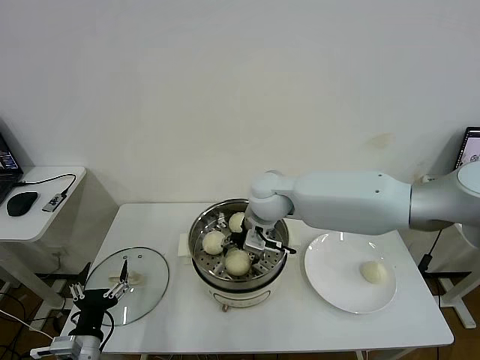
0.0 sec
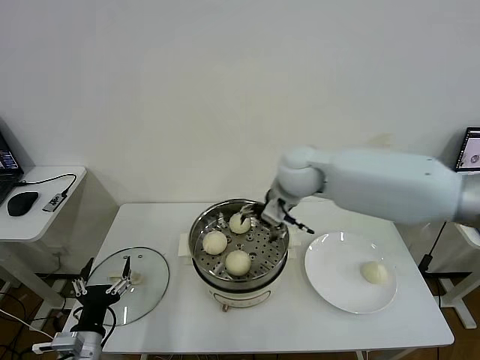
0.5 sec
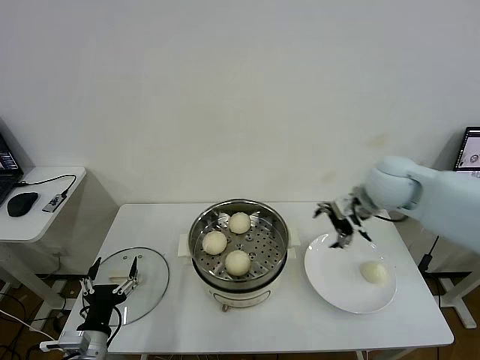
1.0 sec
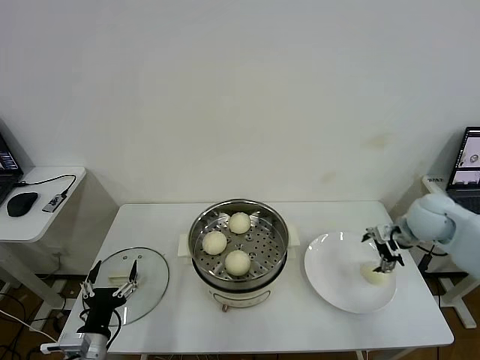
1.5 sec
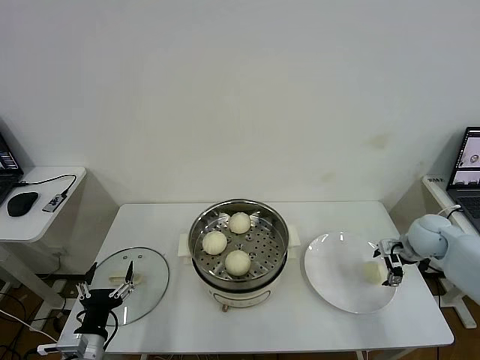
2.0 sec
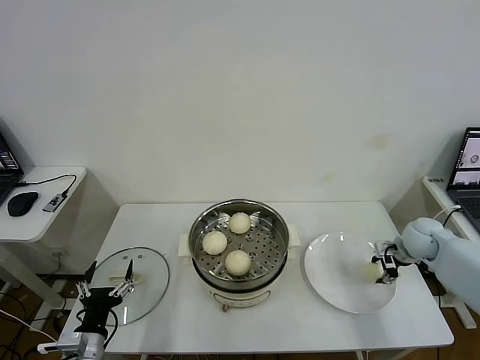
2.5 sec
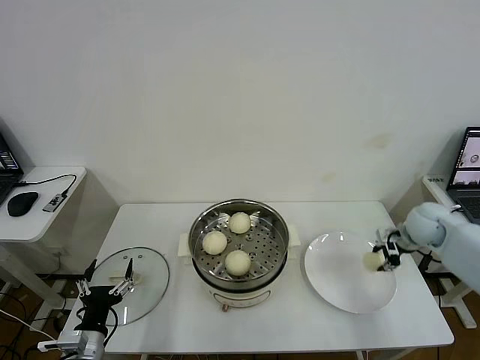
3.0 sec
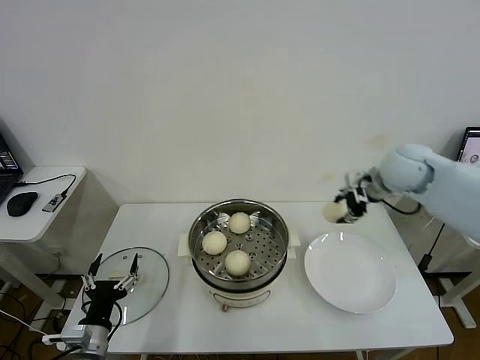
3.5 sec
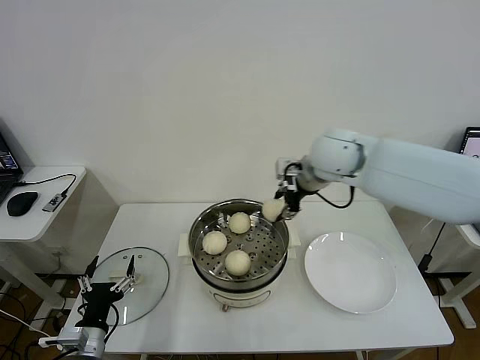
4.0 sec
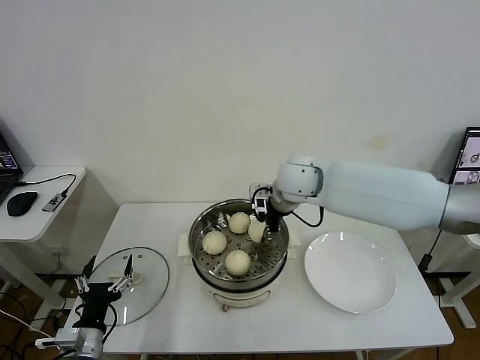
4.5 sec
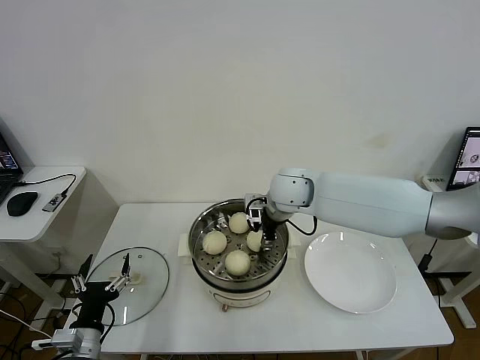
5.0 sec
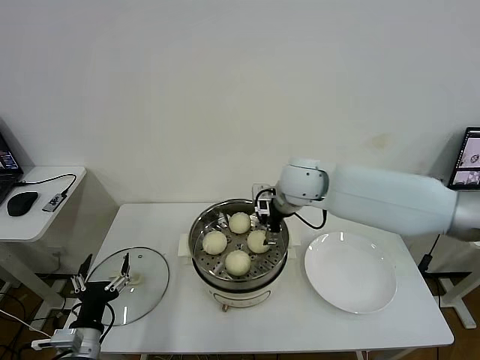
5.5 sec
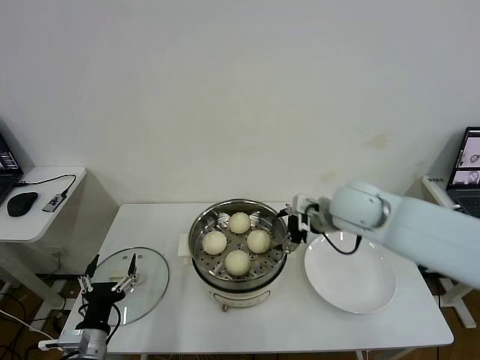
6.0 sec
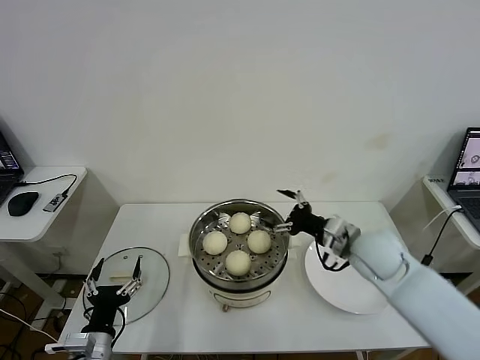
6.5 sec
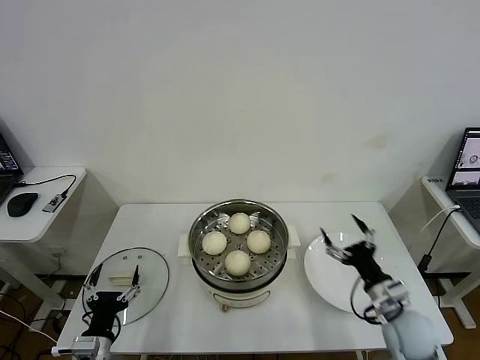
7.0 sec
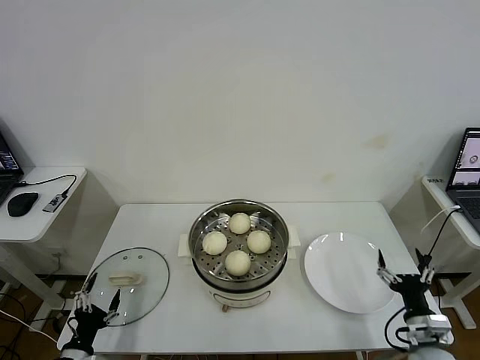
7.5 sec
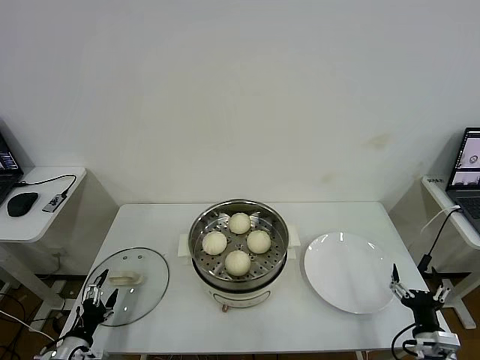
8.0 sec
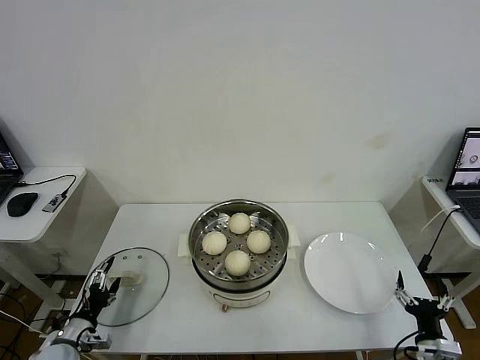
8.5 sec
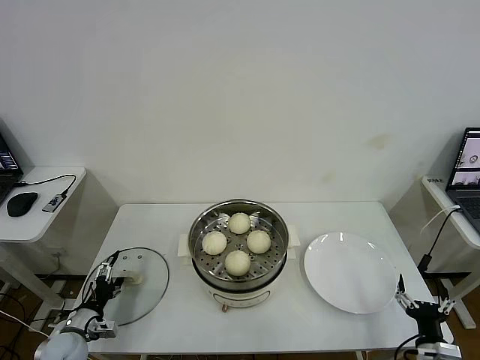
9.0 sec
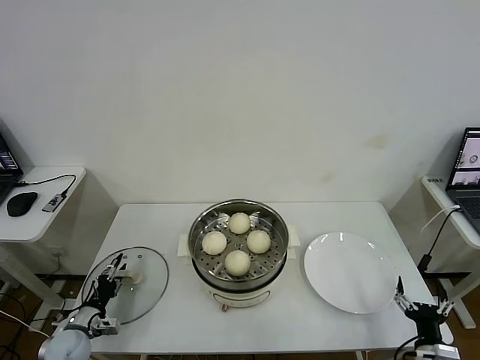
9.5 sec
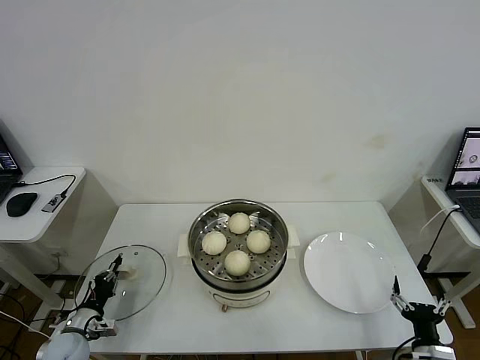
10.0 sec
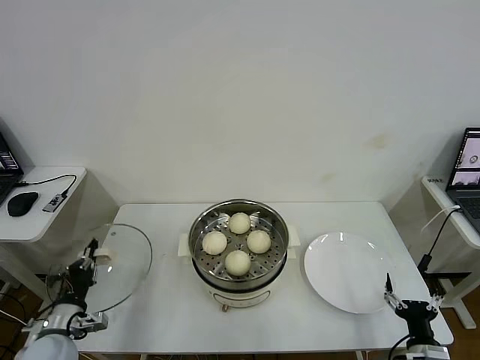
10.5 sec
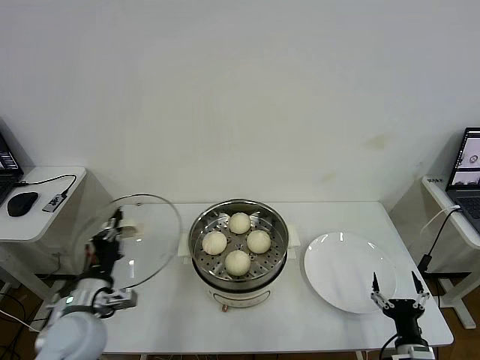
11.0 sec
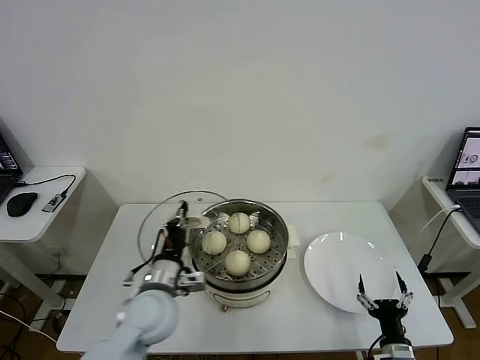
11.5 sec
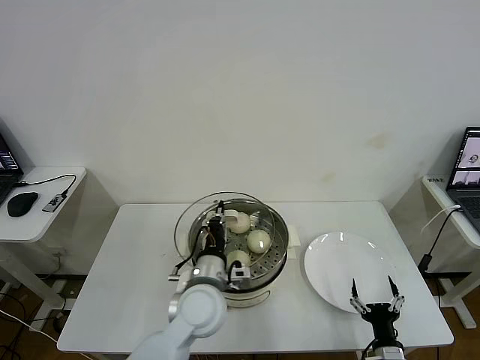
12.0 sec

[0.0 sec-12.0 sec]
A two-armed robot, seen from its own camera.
Task of the whole recording: take steamed baozi put them in steamer then cover it.
Step, 0.5 sec to 2.5 sec: Grasp the baozi in the plate with right gripper.
Step, 3.0 sec to 5.0 sec: Place the baozi on the steamer with right gripper.
Step, 5.5 sec to 10.0 sec: Grasp the pot lid with left gripper.
0.0 sec to 2.0 sec: The right gripper travels to the right by roughly 40 cm.
2.0 sec to 4.0 sec: The right gripper moves to the left and upward, roughly 35 cm, and closes its fingers.
4.0 sec to 6.0 sec: The right gripper shifts approximately 10 cm downward and backward, moves approximately 5 cm to the left and comes back, and opens its fingers.
6.0 sec to 8.0 sec: The right gripper heads downward, backward and to the right, covering some 40 cm. The left gripper moves to the left and downward, about 15 cm.
8.0 sec to 10.0 sec: The left gripper is displaced forward by about 10 cm, and closes up.
10.0 sec to 12.0 sec: The right gripper is displaced to the left by some 5 cm; the left gripper is displaced to the right and upward by some 40 cm.

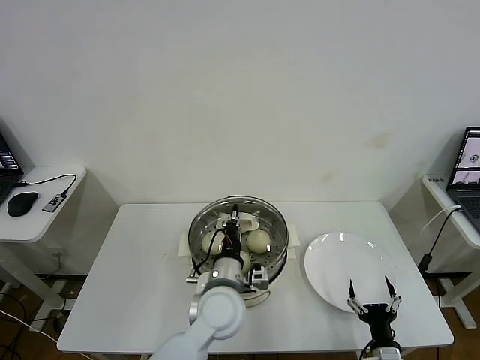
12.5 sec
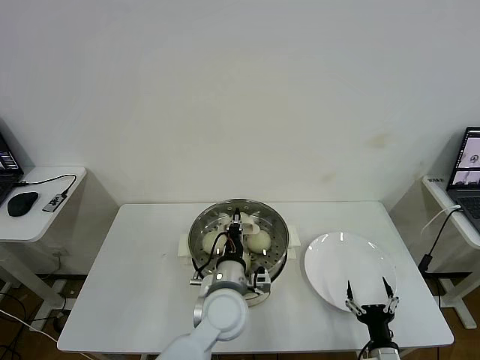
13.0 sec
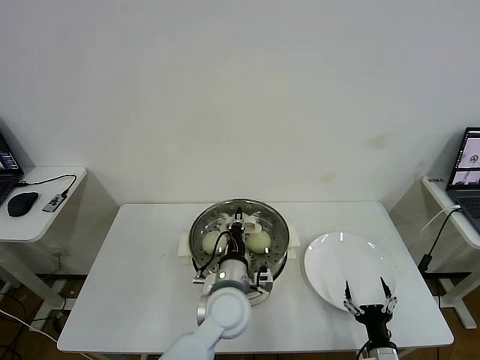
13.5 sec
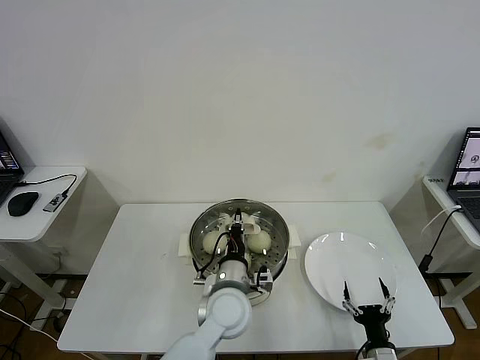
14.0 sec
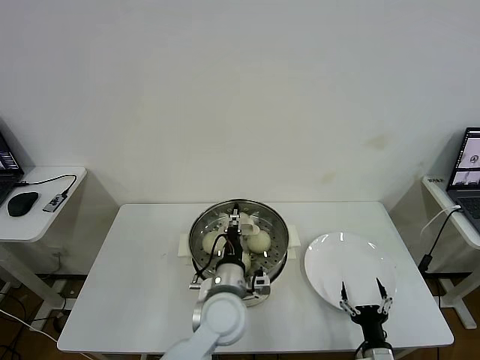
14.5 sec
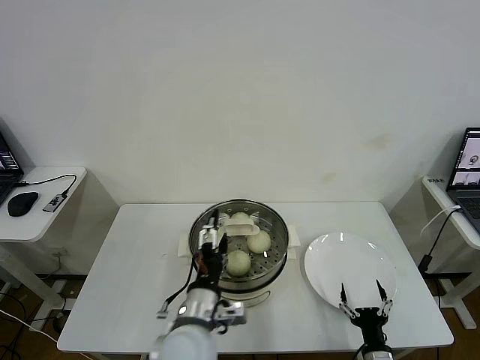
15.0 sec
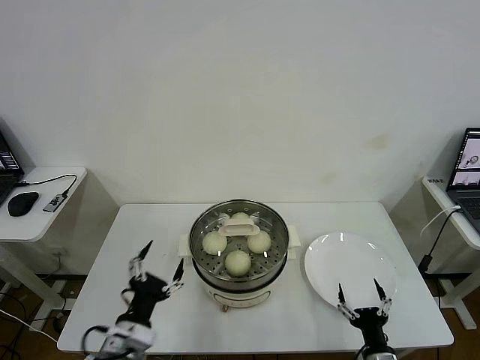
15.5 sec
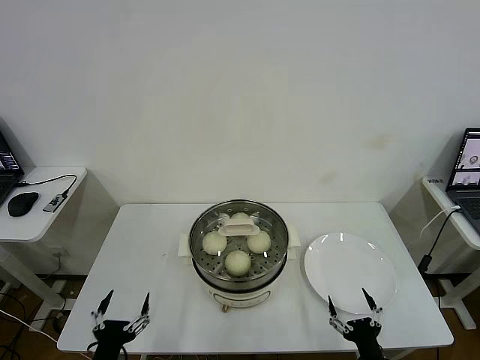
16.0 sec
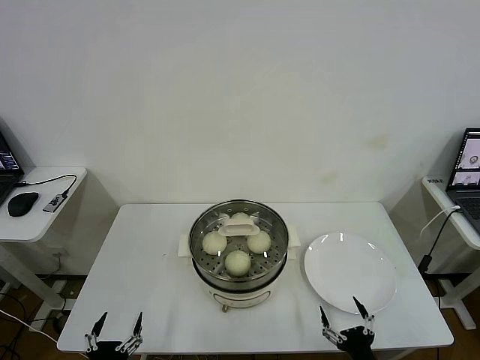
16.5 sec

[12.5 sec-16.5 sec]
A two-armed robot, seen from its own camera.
Task of the whole recording: take steamed baozi put them in steamer then cover it.
Step, 12.5 sec to 15.0 sec: Place the pot lid on the steamer with left gripper.
12.5 sec to 14.5 sec: The left gripper opens up.
14.5 sec to 16.5 sec: The left gripper heads to the left and backward, covering roughly 35 cm, and opens, while the right gripper goes approximately 5 cm backward.
